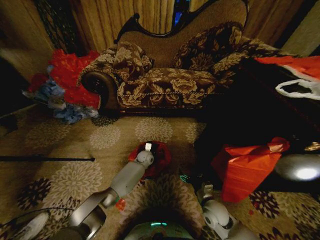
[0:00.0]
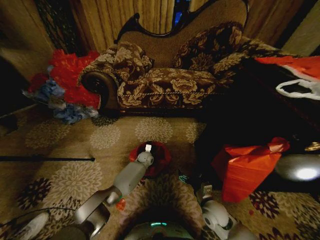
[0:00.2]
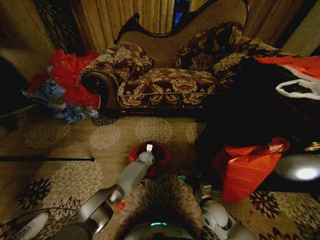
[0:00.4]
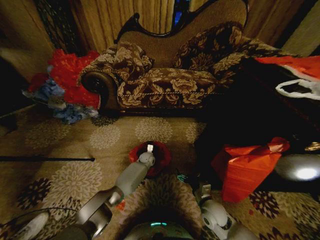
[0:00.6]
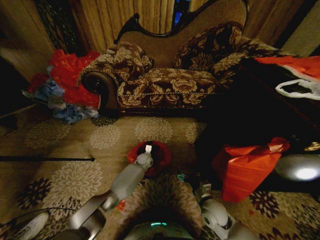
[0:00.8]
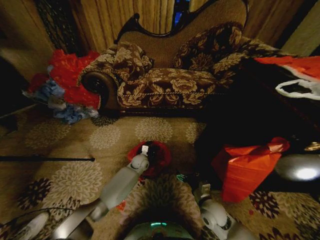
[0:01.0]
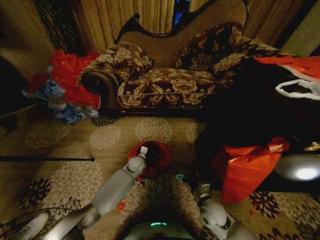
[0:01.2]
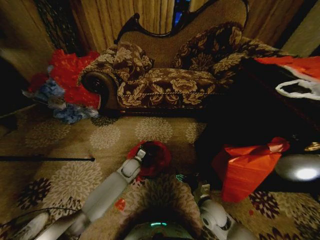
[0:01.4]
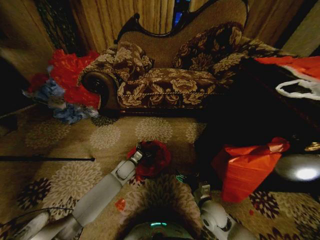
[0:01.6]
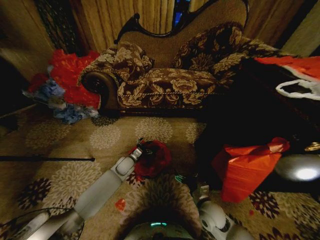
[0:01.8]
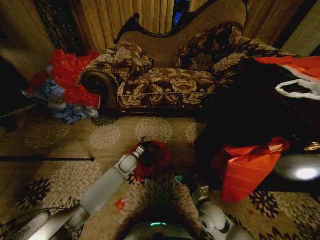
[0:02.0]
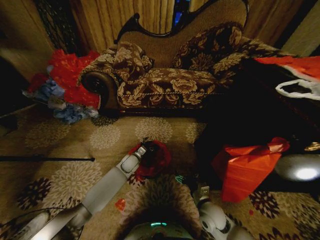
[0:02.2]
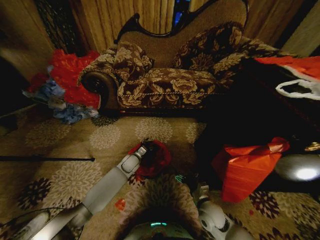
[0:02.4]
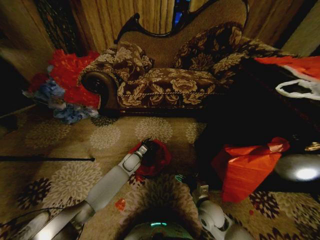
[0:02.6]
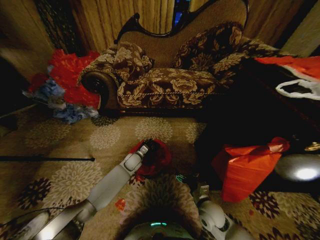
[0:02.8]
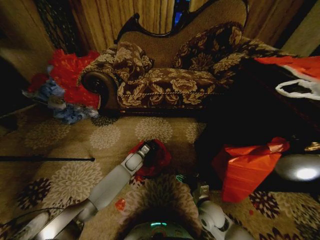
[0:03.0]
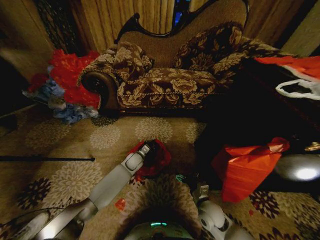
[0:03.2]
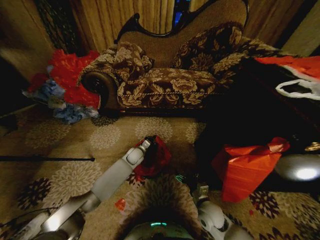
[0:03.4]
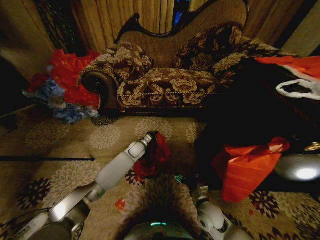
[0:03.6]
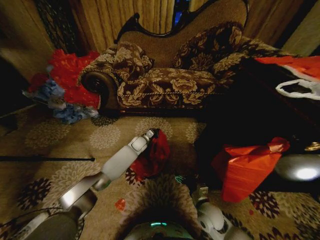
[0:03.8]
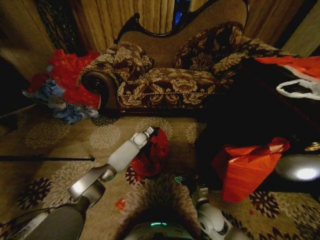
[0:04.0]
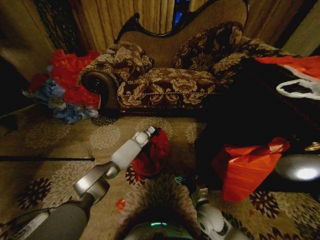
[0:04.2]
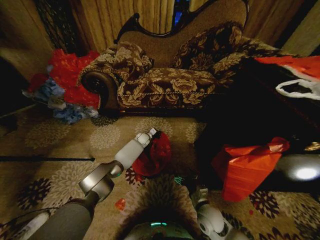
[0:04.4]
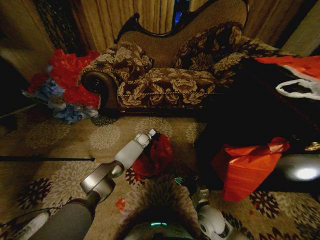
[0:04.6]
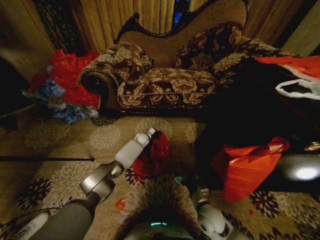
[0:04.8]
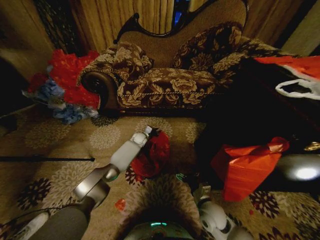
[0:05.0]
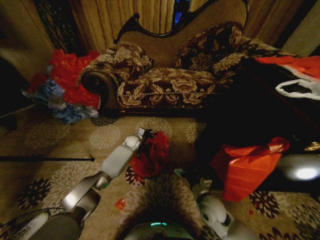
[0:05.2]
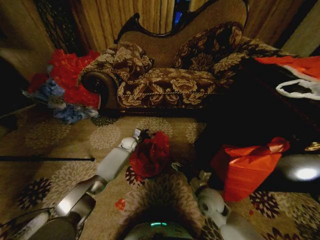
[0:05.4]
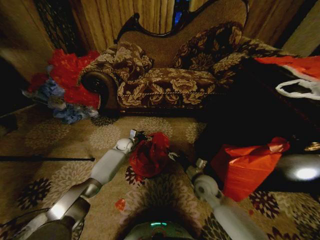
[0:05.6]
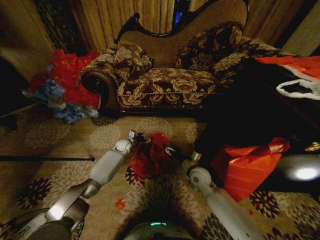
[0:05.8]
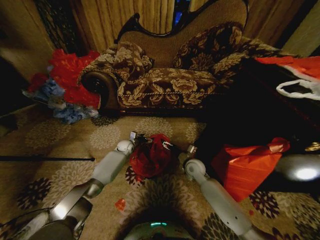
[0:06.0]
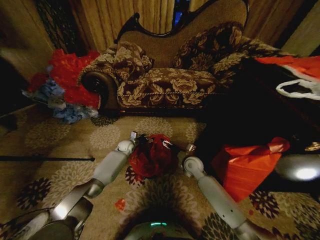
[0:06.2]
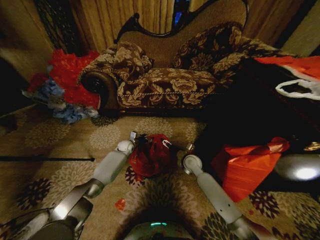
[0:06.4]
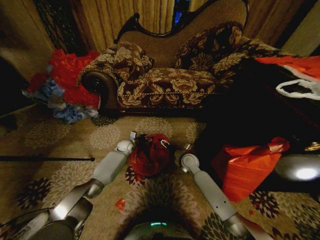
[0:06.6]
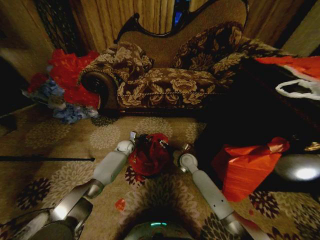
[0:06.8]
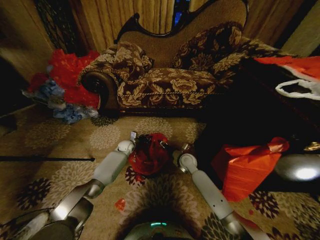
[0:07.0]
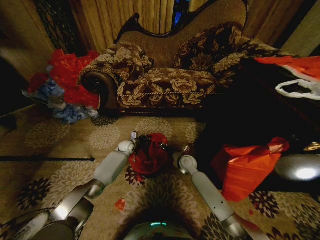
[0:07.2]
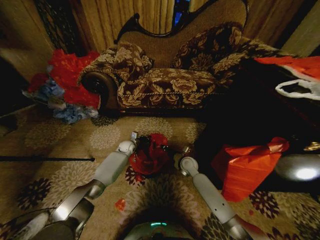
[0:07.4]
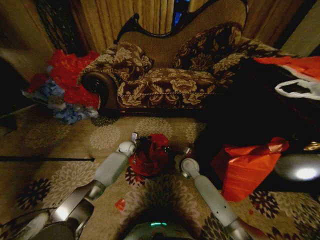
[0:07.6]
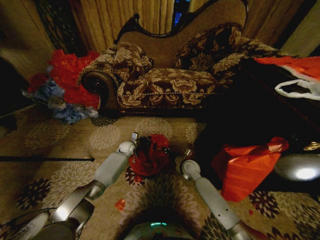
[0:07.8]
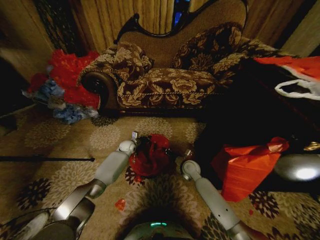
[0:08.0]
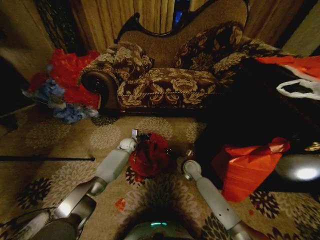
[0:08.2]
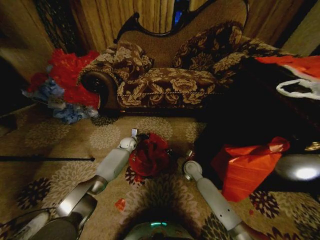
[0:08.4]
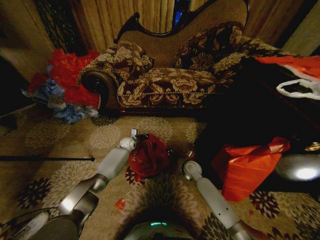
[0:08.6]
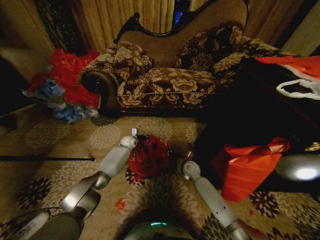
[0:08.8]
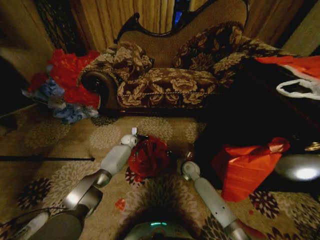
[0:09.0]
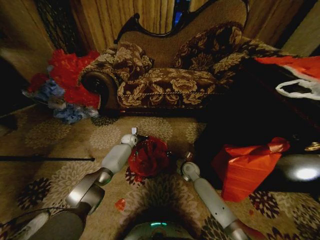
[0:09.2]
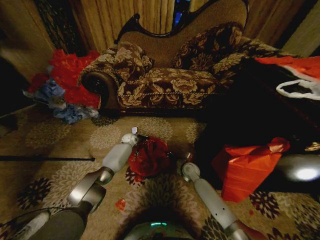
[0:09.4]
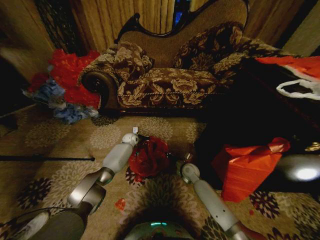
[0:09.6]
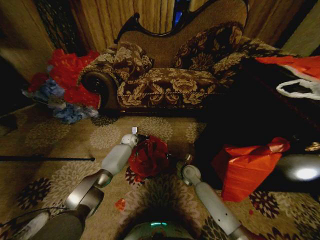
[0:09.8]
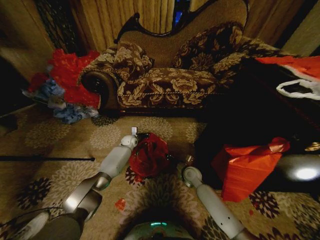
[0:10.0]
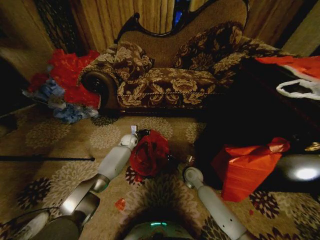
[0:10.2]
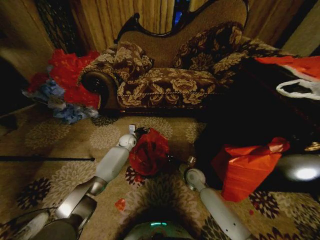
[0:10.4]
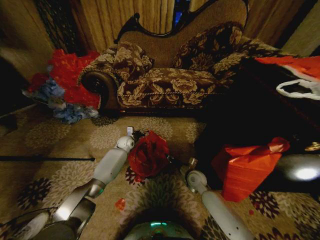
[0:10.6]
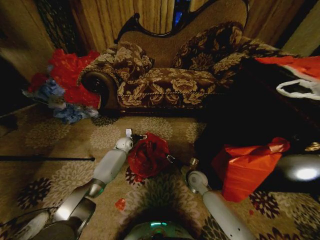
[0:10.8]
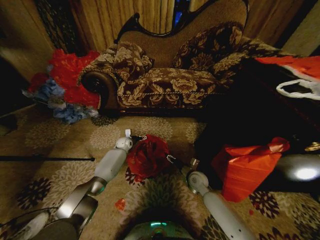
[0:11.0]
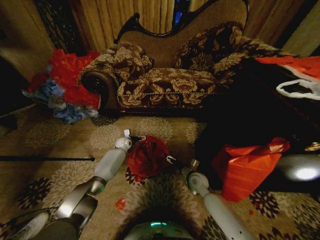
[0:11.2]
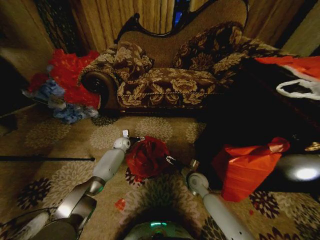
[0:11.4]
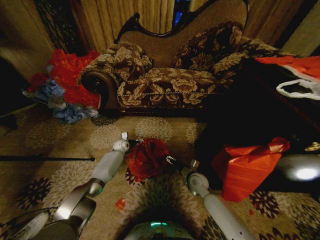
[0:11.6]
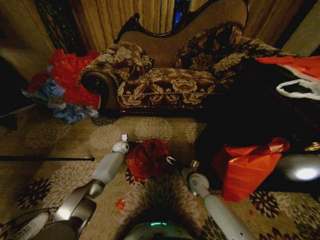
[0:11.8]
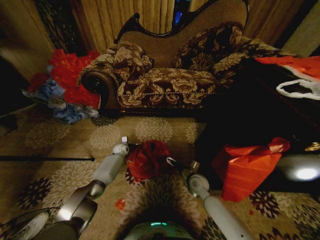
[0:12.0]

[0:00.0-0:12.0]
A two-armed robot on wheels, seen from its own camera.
Task of the whole recording: Place a garbage bag over the trash bin.
0:00.0 to 0:01.6: The left gripper moves backward and to the left, about 15 cm, and opens its fingers.
0:01.6 to 0:03.0: The left gripper travels forward by about 5 cm, and closes.
0:03.0 to 0:04.4: The left gripper shifts approximately 15 cm forward.
0:04.4 to 0:06.0: The right gripper is displaced forward by roughly 20 cm; the left gripper heads to the left and backward, covering roughly 10 cm, and opens its fingers.
0:06.0 to 0:07.6: The left gripper closes up; the right gripper shifts by approximately 5 cm, and closes its fingers.
0:07.6 to 0:09.0: The left gripper ends up some 5 cm from where it was.
0:09.0 to 0:10.4: The left gripper opens its fingers. Meanwhile the right gripper changes place by about 5 cm.
0:10.4 to 0:12.0: The left gripper goes some 10 cm downward and to the left, and opens its fingers. Meanwhile the right gripper opens.

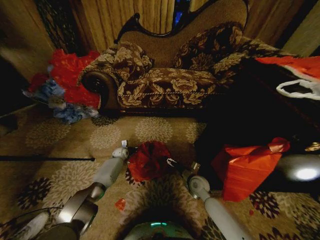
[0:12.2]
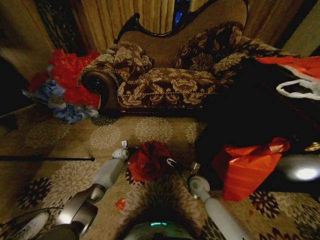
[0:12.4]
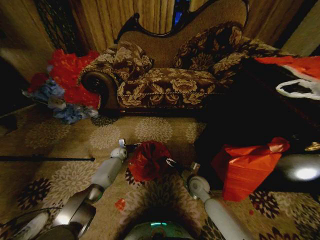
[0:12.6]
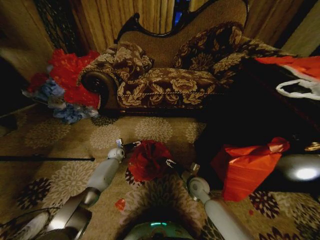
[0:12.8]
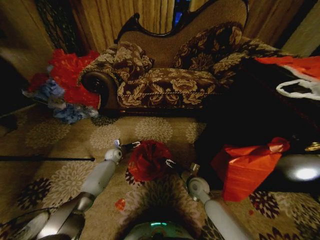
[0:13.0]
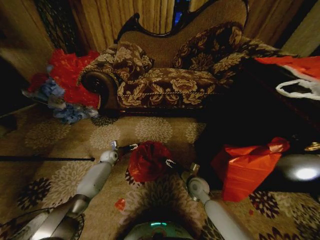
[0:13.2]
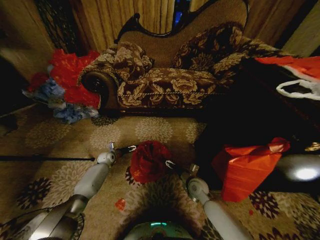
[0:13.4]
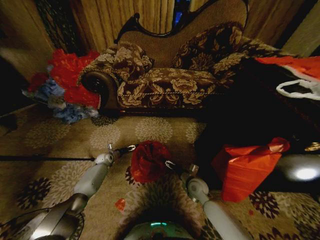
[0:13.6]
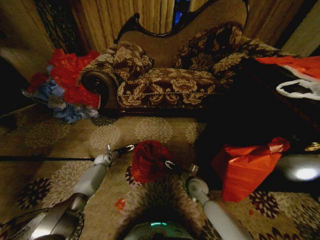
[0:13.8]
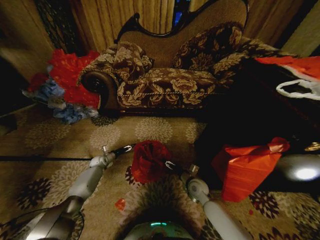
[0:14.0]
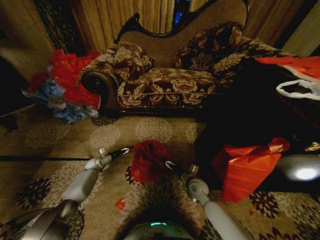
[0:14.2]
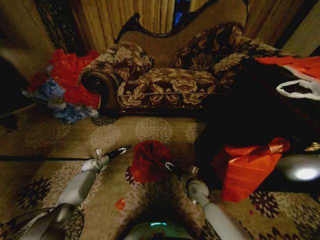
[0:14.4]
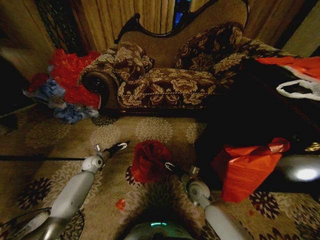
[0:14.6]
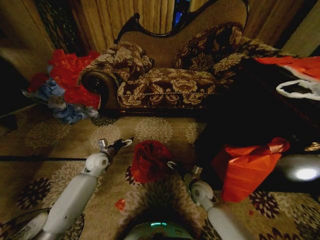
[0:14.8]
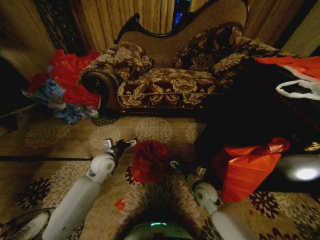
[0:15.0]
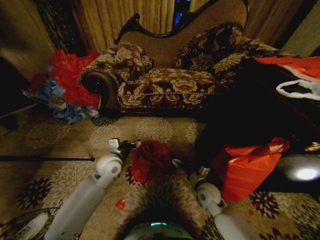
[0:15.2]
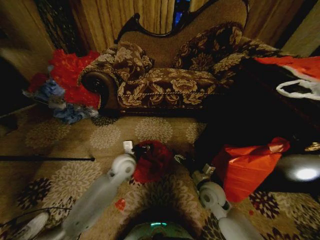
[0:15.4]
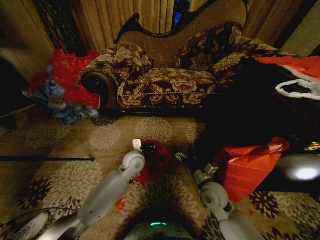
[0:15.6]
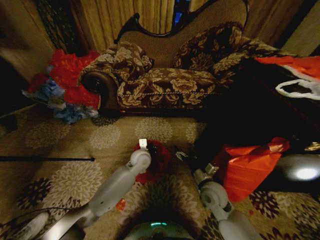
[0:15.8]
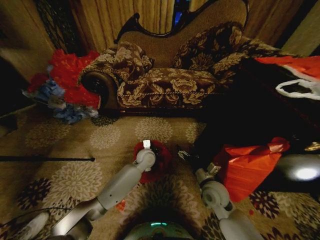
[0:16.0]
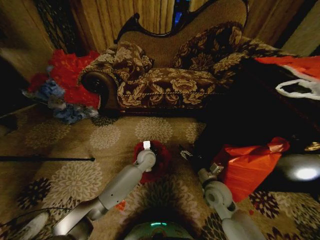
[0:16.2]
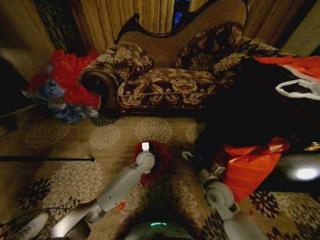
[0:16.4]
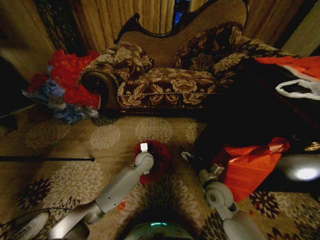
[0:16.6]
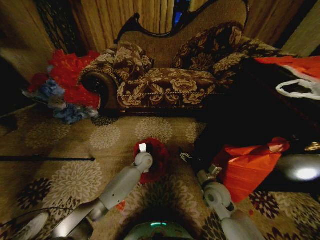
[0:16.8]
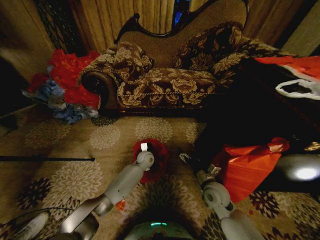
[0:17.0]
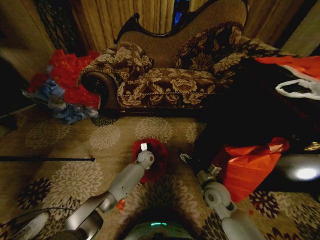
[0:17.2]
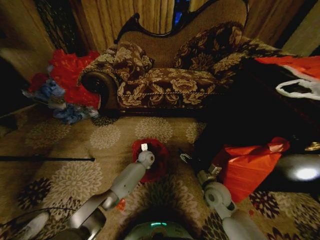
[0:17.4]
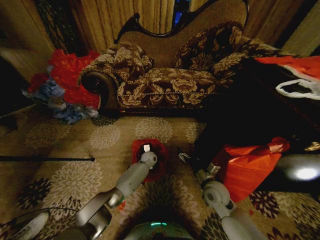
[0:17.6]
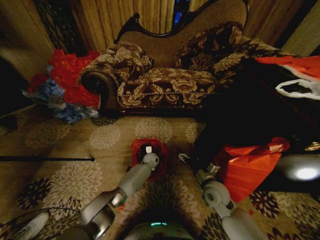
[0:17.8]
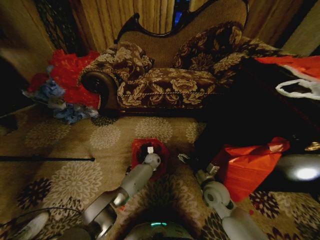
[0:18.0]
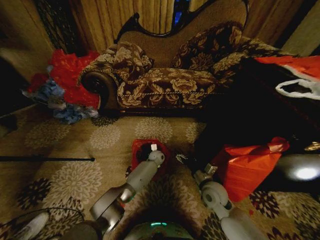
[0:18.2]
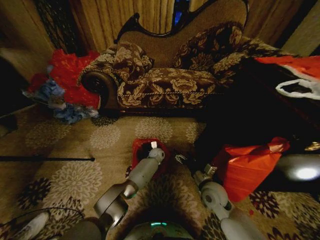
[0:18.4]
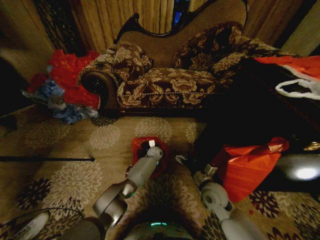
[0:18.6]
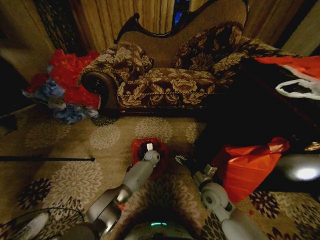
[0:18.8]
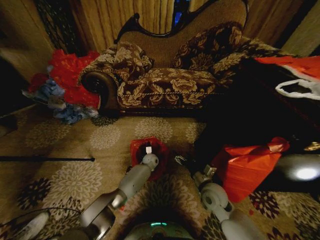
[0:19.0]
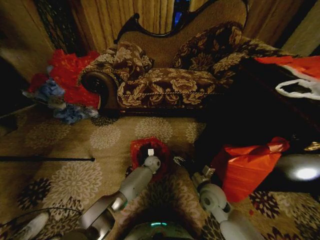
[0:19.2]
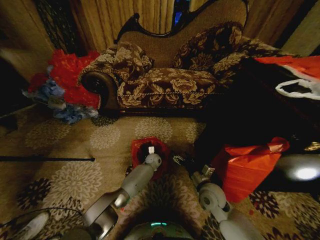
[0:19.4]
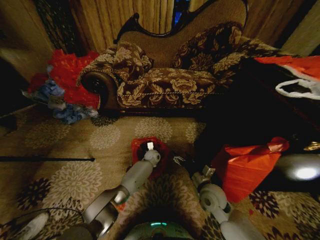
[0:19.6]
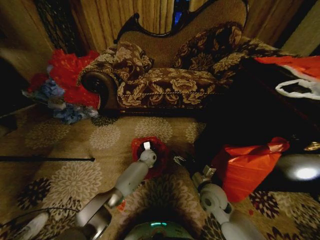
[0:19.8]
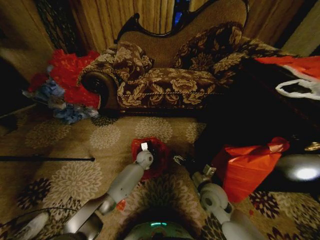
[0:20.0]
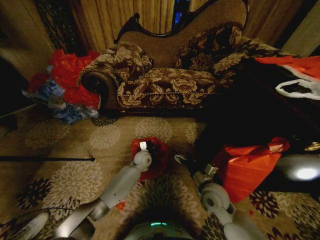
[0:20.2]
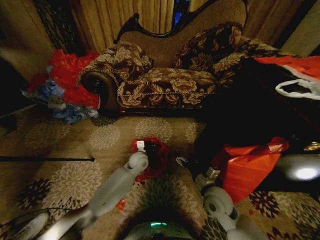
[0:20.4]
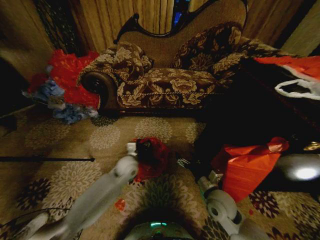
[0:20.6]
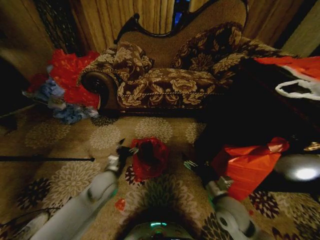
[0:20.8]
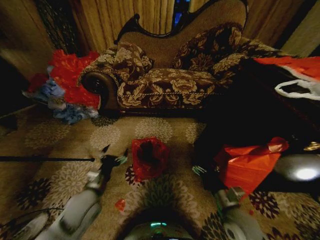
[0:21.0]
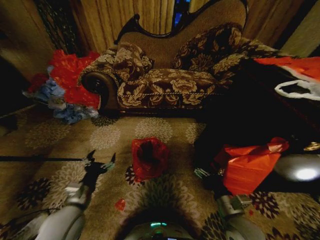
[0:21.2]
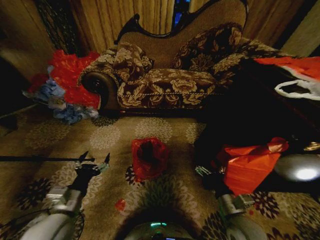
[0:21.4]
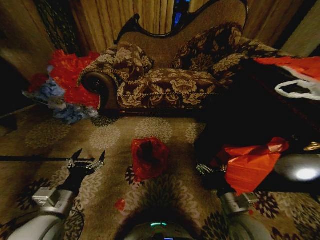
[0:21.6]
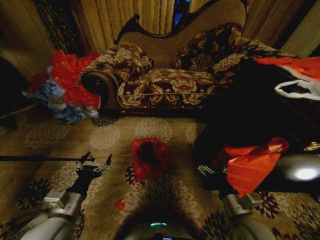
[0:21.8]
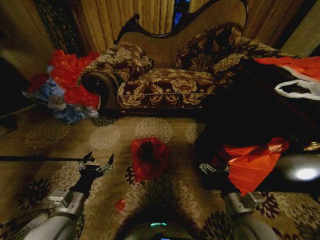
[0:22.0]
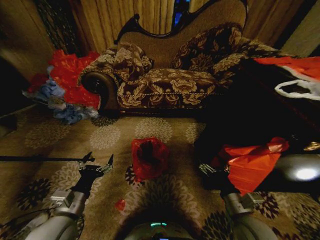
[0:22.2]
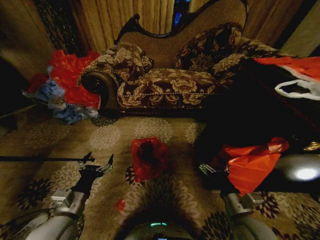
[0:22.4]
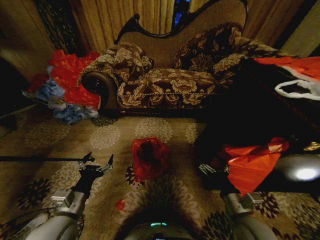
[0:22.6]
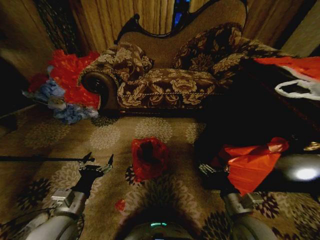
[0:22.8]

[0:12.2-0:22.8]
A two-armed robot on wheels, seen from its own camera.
Task of the whole recording: Place a garbage bag over the trash bin.
0:12.2 to 0:13.8: The left gripper moves to the left, approximately 10 cm.
0:13.8 to 0:15.2: The right gripper moves roughly 5 cm. Meanwhile the left gripper goes approximately 30 cm upward, to the right and backward.
0:15.2 to 0:16.8: The left gripper heads downward, to the right and forward, covering approximately 20 cm, and closes up.
0:16.8 to 0:18.2: The left gripper goes roughly 10 cm downward, forward and to the right.
0:18.2 to 0:19.8: The left gripper shifts by about 5 cm.
0:19.8 to 0:21.2: The left gripper shifts some 40 cm backward, to the left and upward, and opens. Meanwhile the right gripper travels backward by approximately 10 cm.
0:21.2 to 0:22.8: There are only small adjustments of the grippers.
